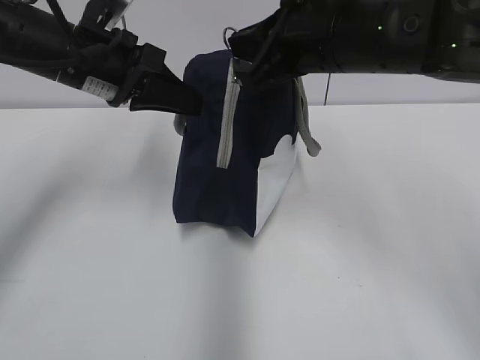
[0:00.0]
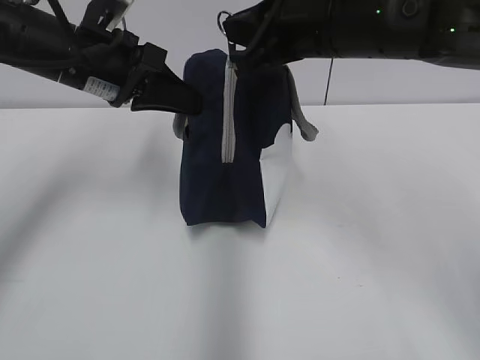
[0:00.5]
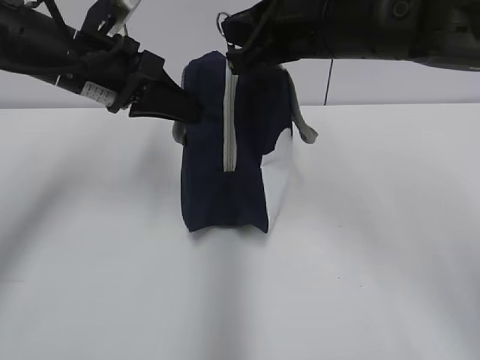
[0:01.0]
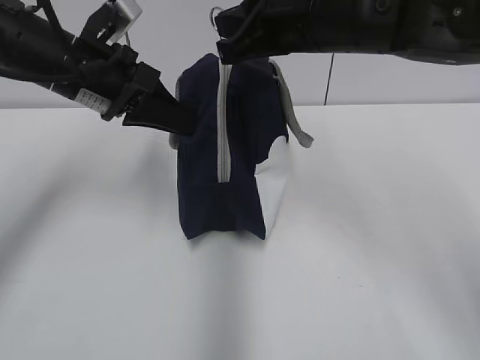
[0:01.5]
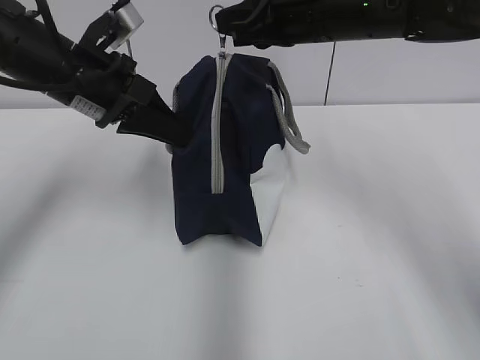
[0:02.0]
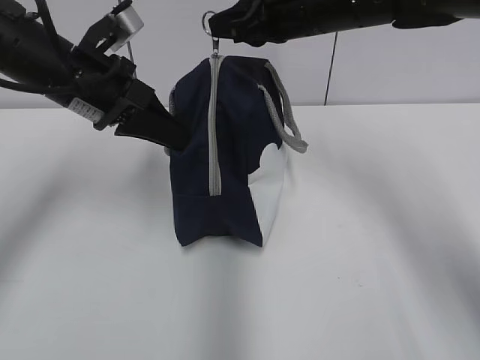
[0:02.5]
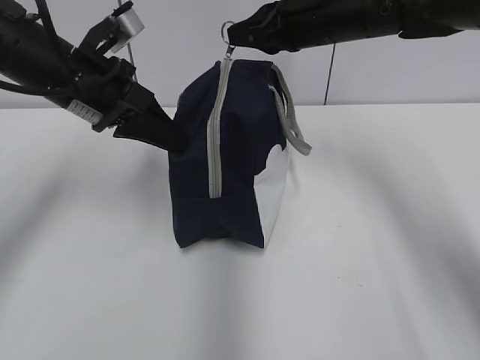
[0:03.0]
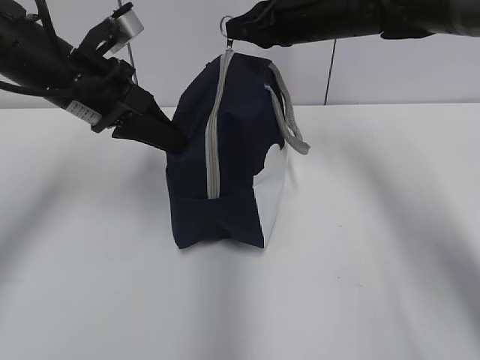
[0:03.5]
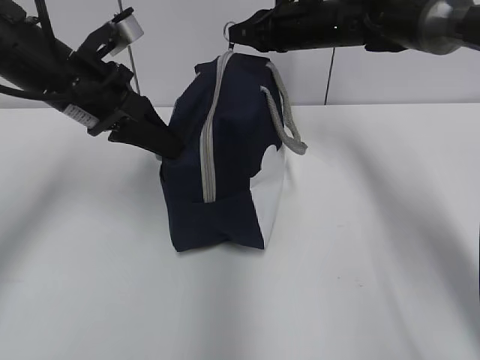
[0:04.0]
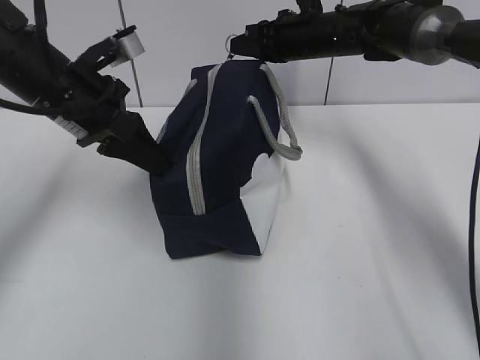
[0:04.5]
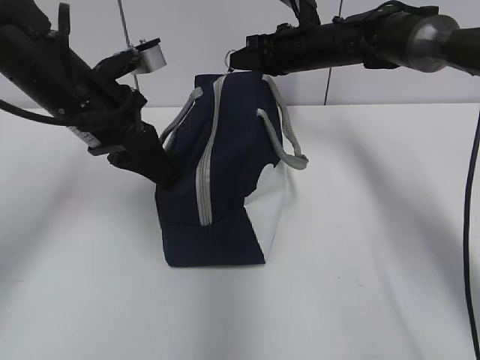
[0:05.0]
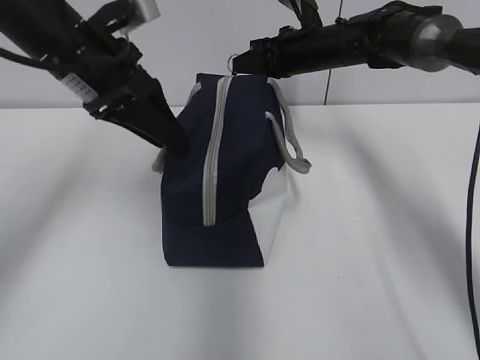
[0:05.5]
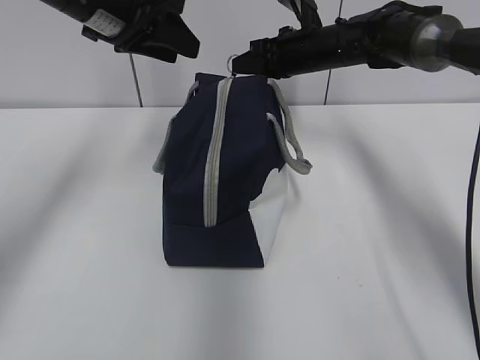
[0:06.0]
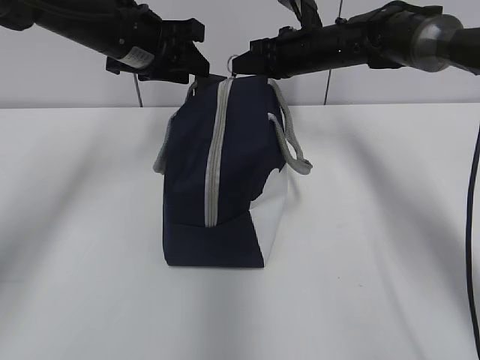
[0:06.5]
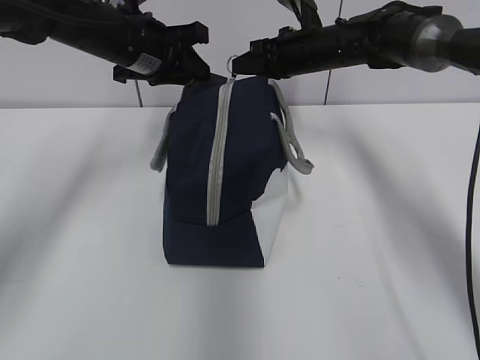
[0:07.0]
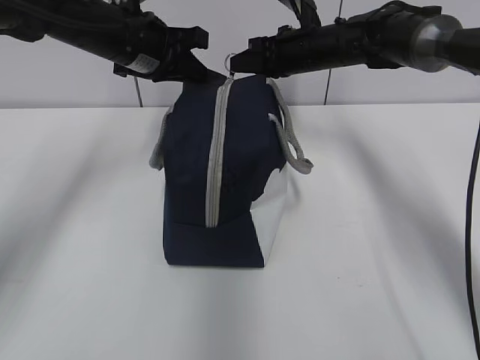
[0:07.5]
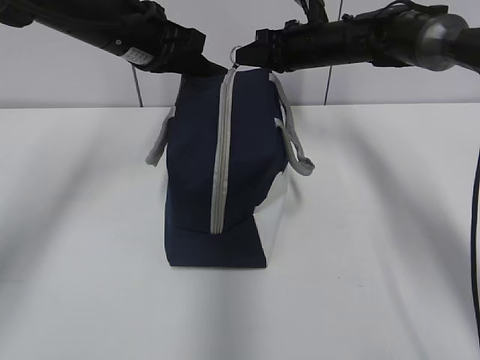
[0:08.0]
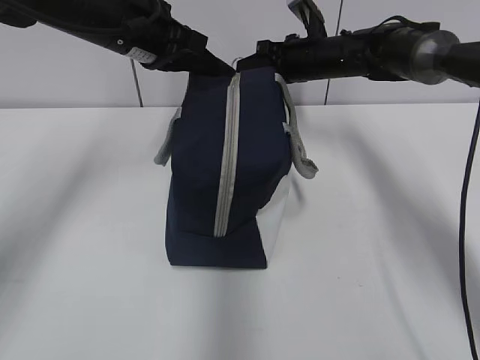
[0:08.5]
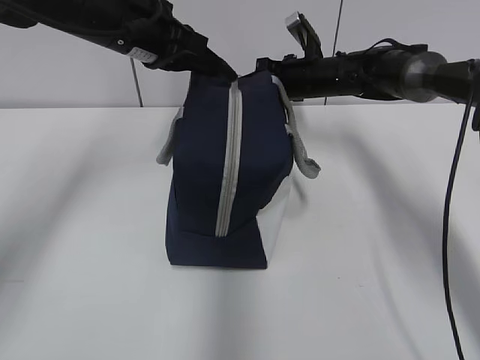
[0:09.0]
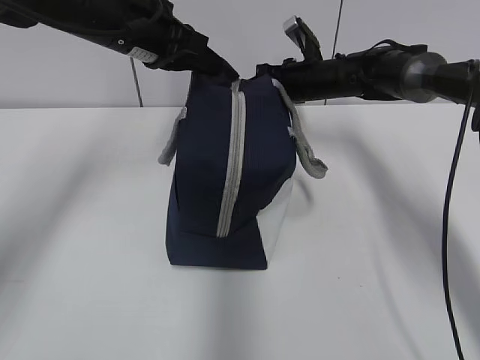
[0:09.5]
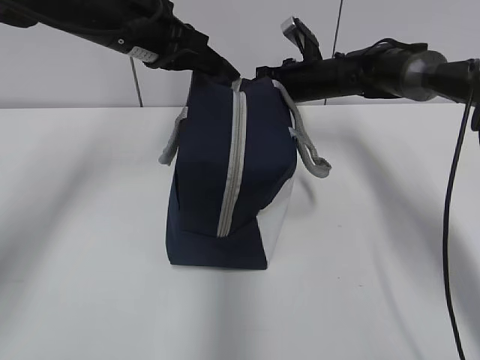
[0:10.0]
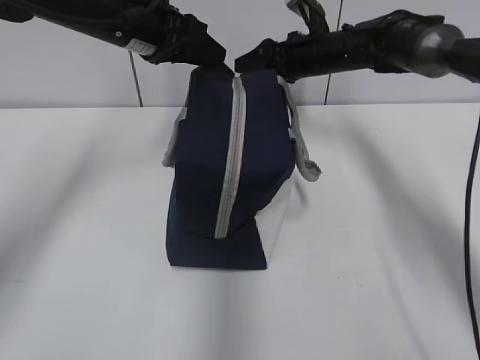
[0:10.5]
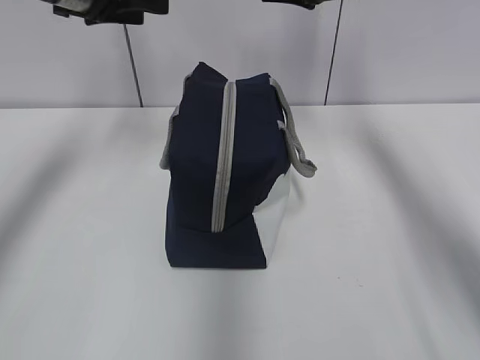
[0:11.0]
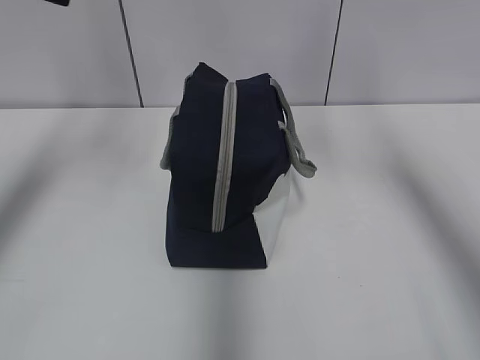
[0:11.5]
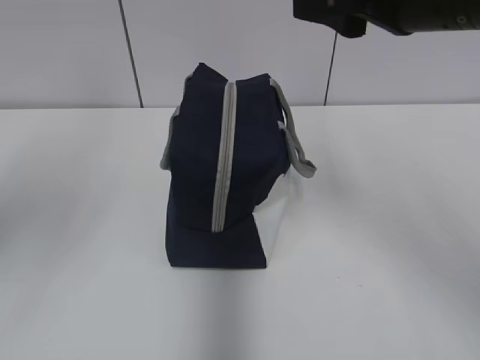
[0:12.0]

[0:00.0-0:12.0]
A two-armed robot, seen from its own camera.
0:00.0 to 0:02.0: The right gripper heads forward, covering approximately 5 cm.
0:02.0 to 0:04.0: The right gripper moves forward and downward, some 15 cm.
0:04.0 to 0:06.0: The left gripper heads upward, covering roughly 10 cm, and opens up.
0:06.0 to 0:08.0: The left gripper ends up about 5 cm from where it was, and closes its fingers.
0:08.0 to 0:10.0: The right gripper travels downward by some 5 cm.
0:10.0 to 0:12.0: The left gripper travels backward, upward and to the left by roughly 30 cm, and opens. The right gripper heads backward and upward, covering approximately 35 cm, and opens.

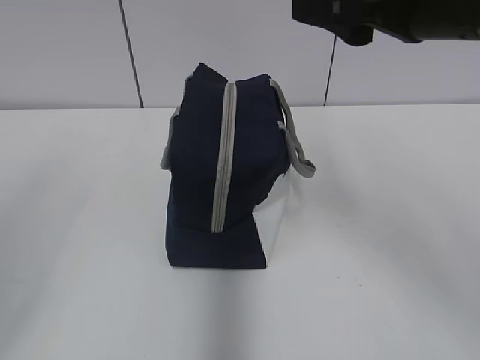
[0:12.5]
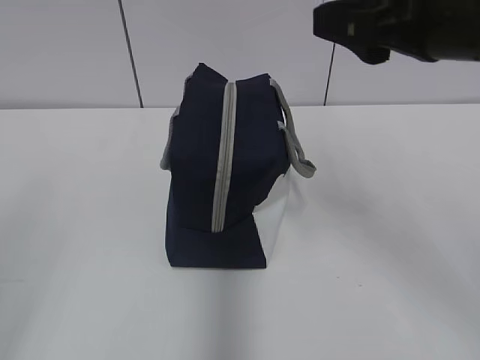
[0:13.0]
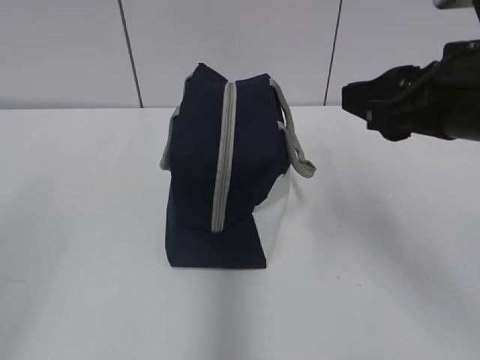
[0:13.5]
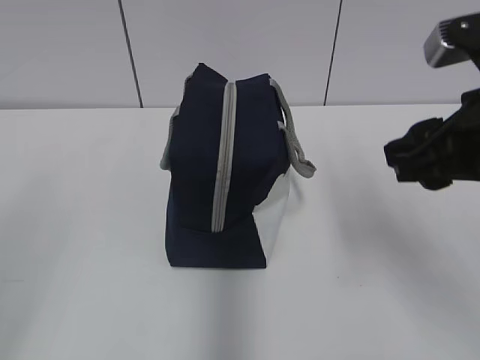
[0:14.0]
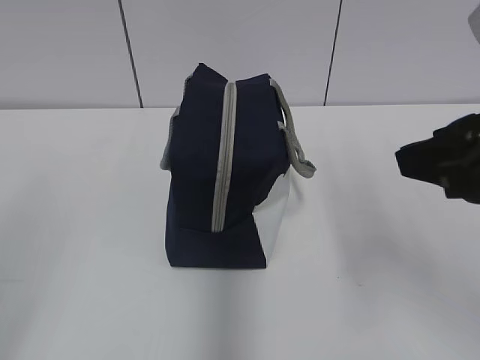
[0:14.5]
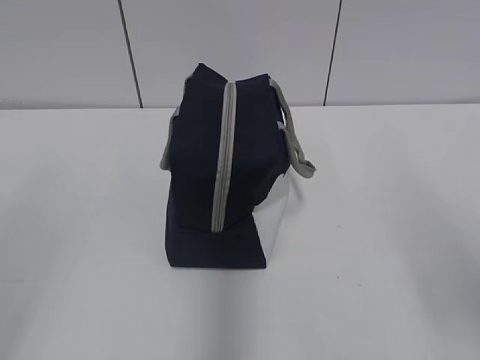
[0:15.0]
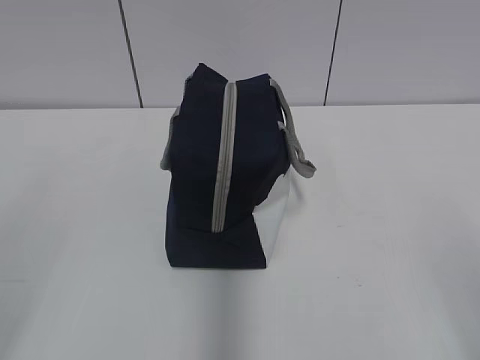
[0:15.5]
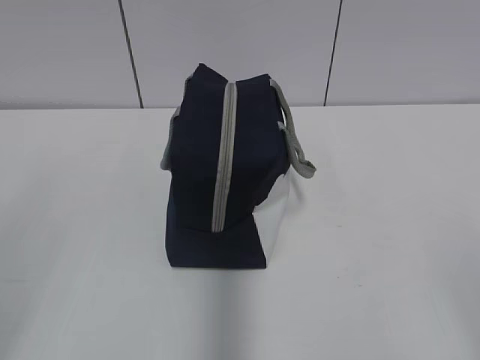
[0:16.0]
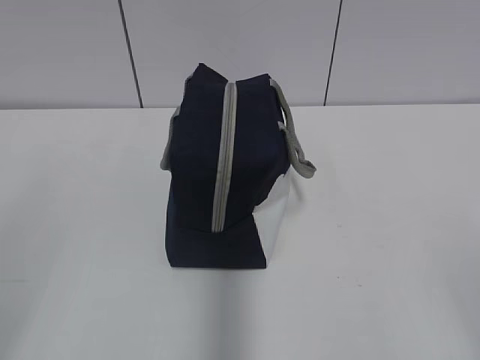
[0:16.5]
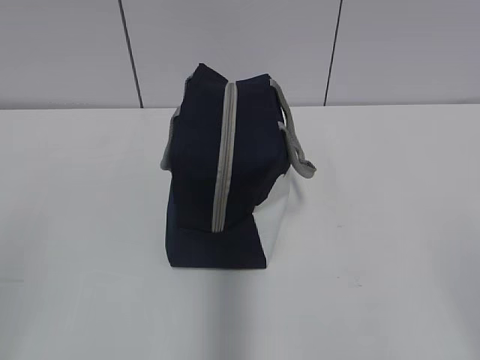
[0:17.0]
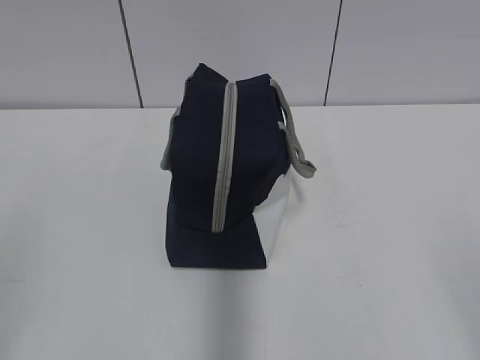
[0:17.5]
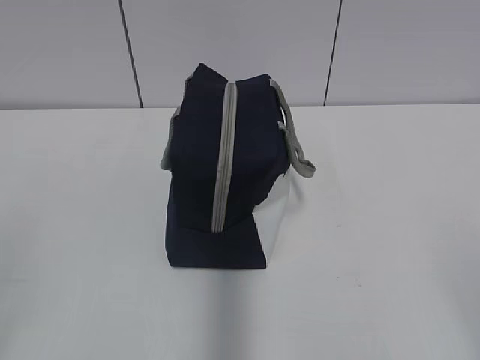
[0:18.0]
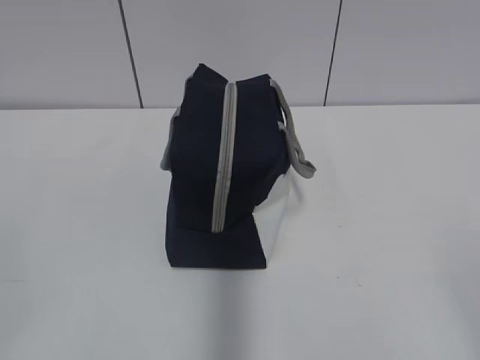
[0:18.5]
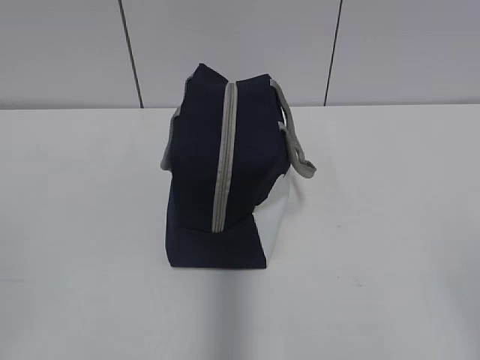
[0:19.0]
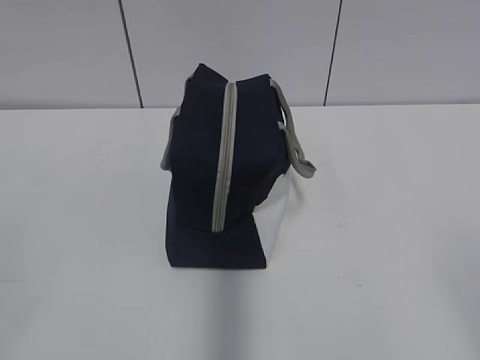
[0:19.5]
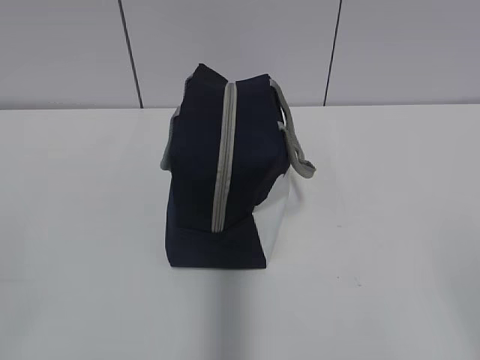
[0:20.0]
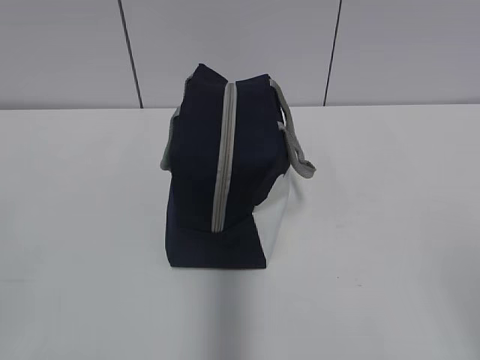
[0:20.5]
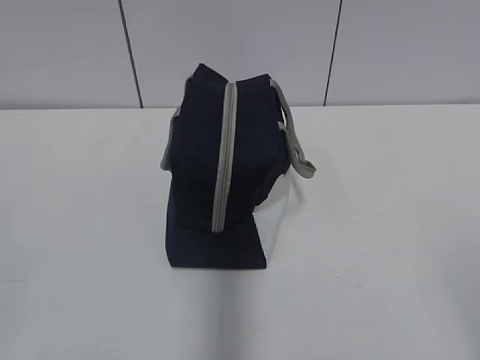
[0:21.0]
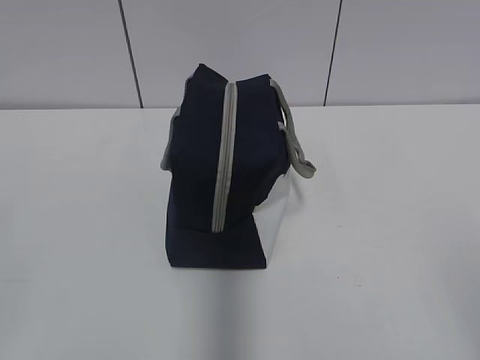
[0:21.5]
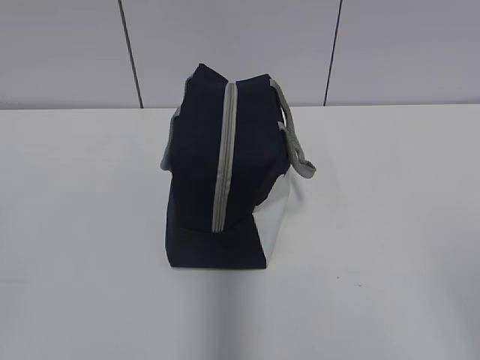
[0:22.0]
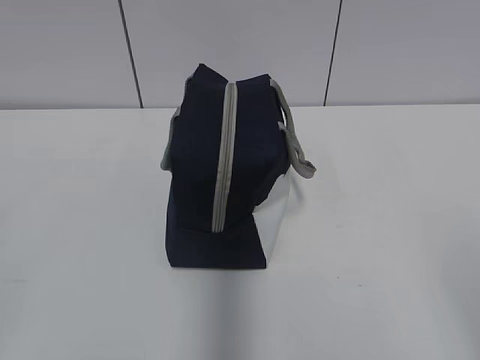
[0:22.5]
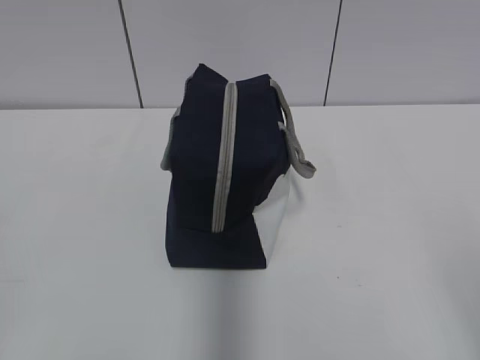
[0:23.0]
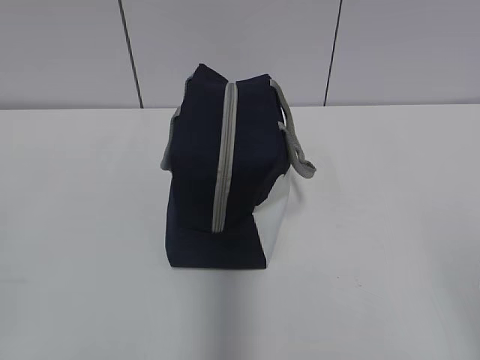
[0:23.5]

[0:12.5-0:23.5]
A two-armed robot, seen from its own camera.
0:12.5 to 0:14.5: The left gripper changes place by approximately 5 cm. The right gripper moves backward, roughly 10 cm.
0:14.5 to 0:16.0: The right gripper travels backward by some 20 cm.
0:21.5 to 0:23.5: Both grippers stay put.
